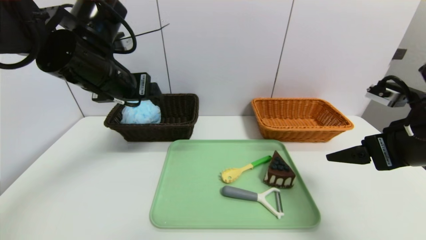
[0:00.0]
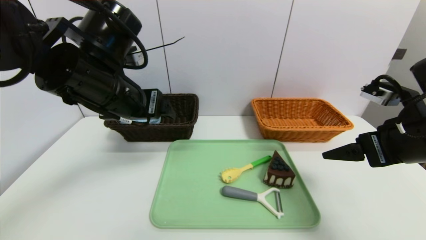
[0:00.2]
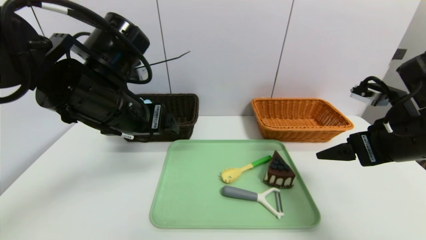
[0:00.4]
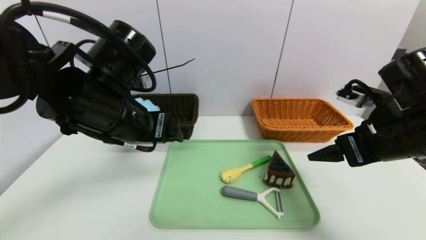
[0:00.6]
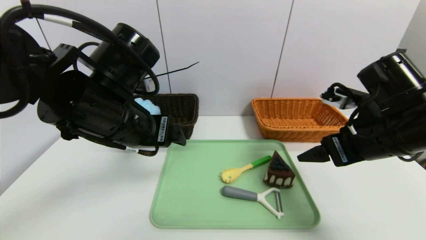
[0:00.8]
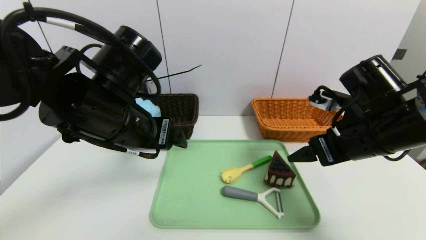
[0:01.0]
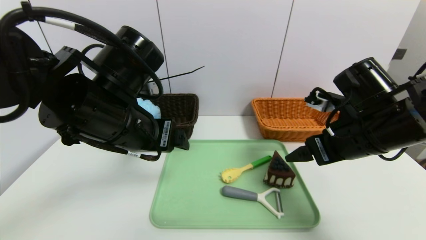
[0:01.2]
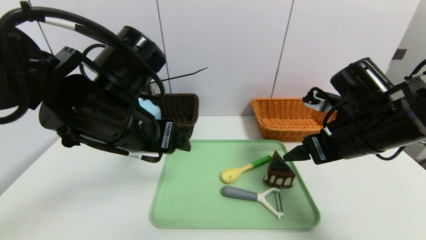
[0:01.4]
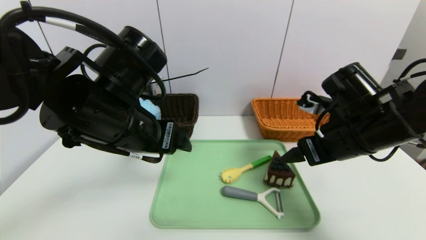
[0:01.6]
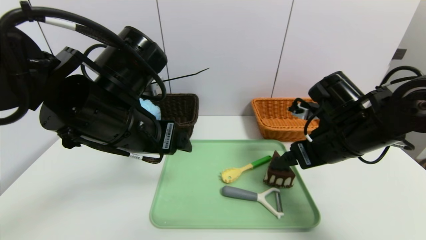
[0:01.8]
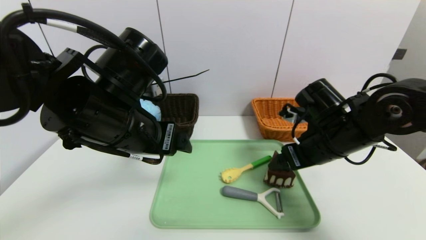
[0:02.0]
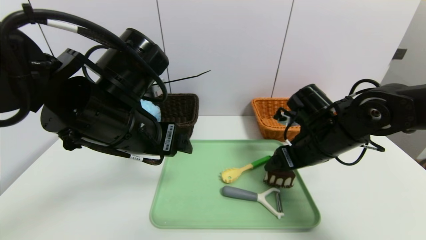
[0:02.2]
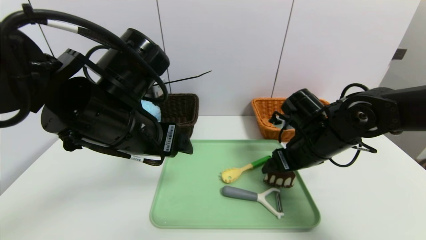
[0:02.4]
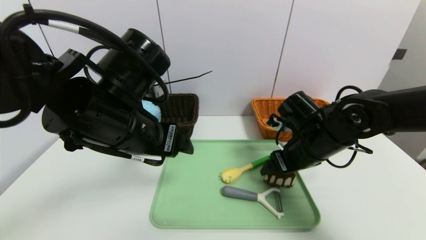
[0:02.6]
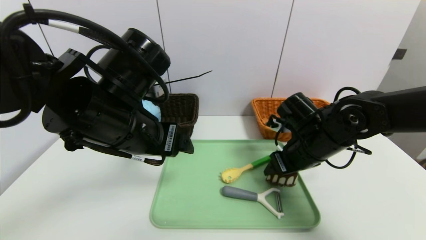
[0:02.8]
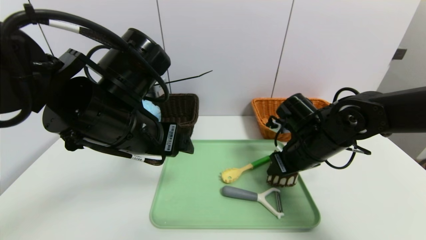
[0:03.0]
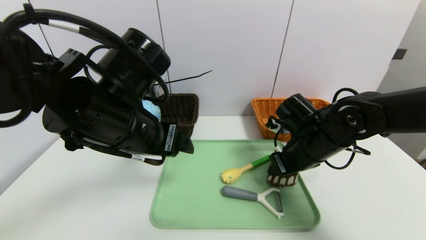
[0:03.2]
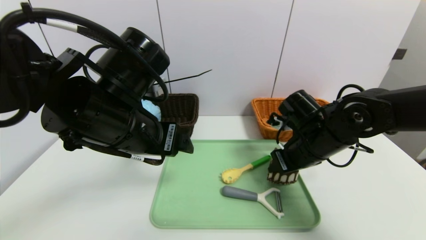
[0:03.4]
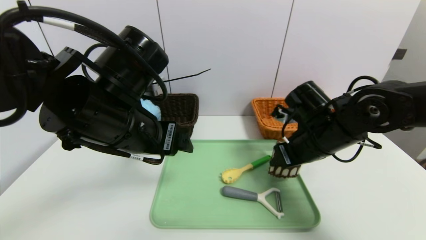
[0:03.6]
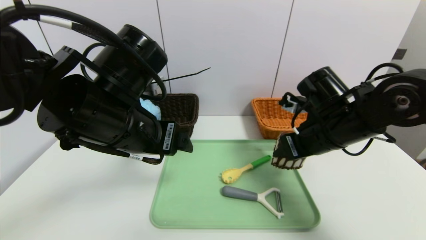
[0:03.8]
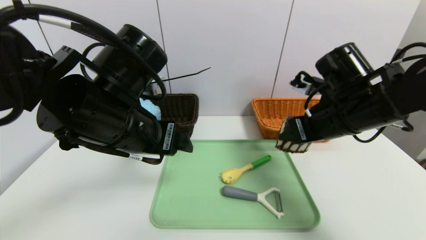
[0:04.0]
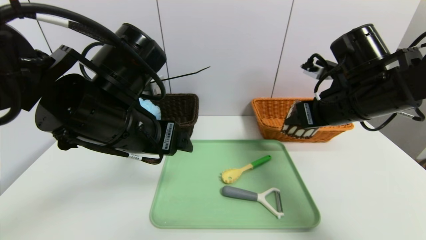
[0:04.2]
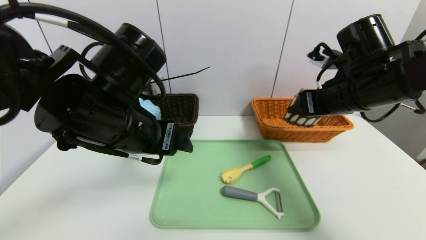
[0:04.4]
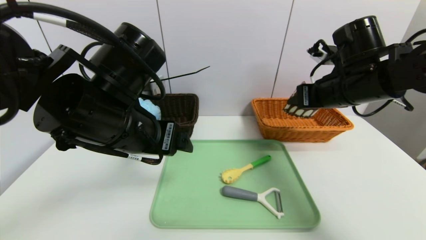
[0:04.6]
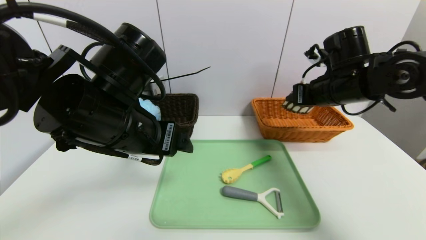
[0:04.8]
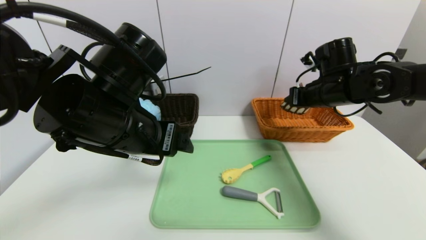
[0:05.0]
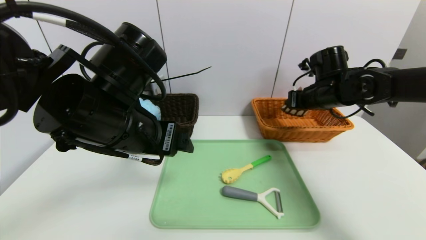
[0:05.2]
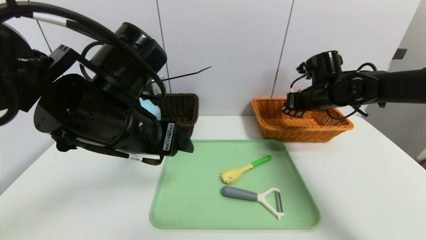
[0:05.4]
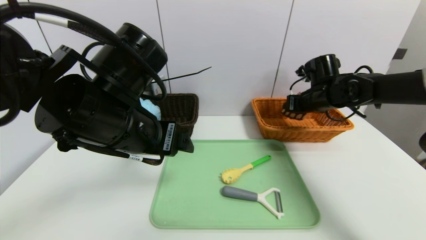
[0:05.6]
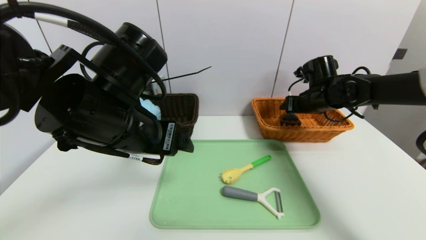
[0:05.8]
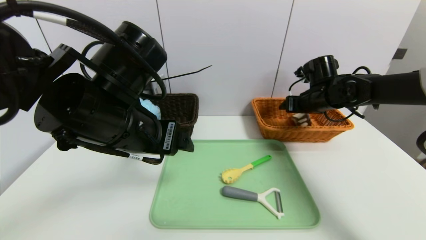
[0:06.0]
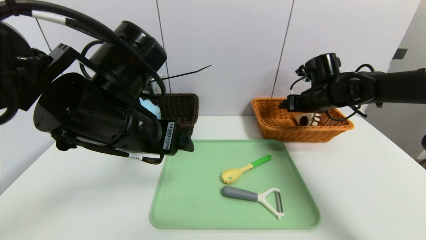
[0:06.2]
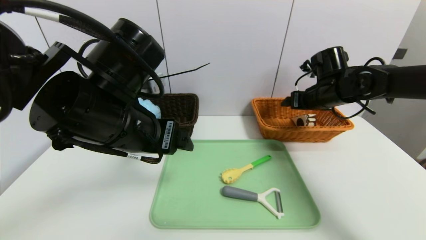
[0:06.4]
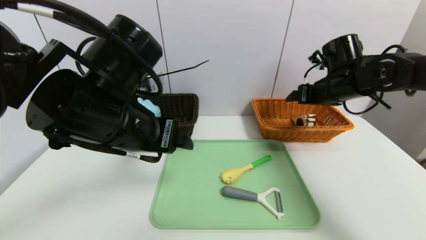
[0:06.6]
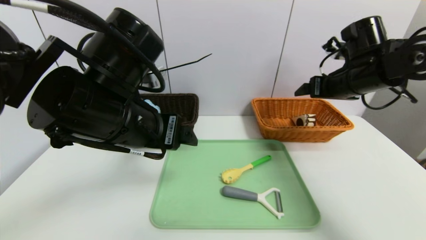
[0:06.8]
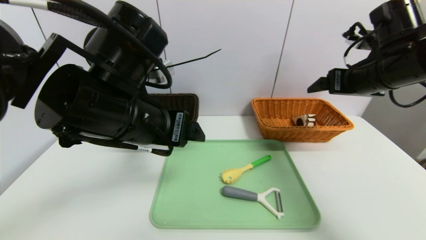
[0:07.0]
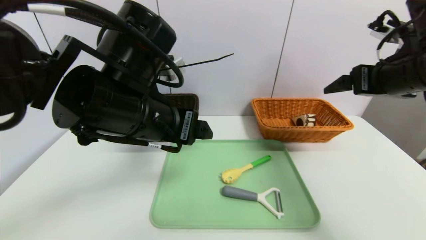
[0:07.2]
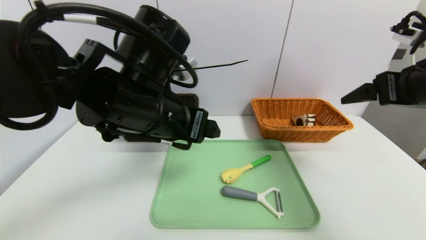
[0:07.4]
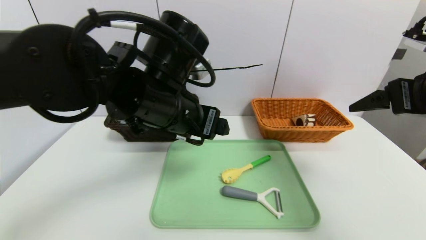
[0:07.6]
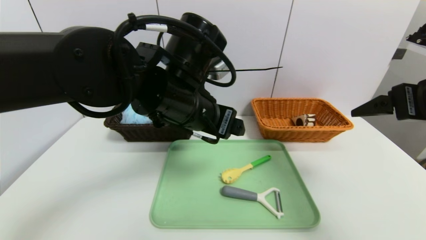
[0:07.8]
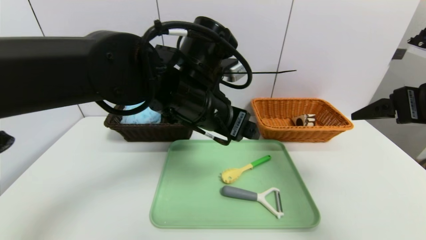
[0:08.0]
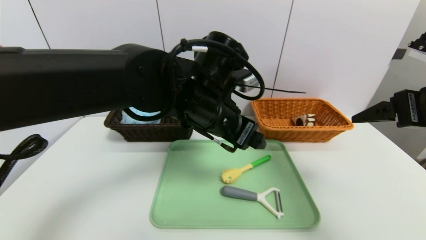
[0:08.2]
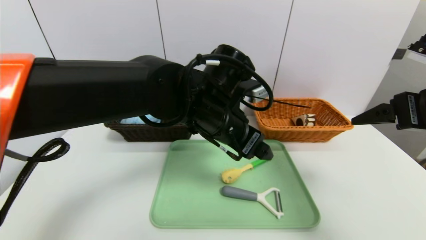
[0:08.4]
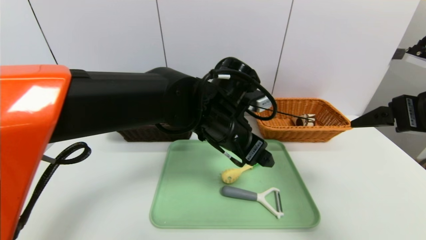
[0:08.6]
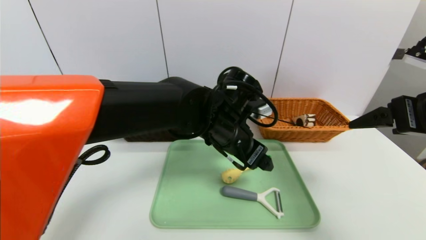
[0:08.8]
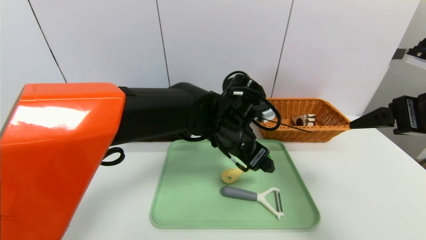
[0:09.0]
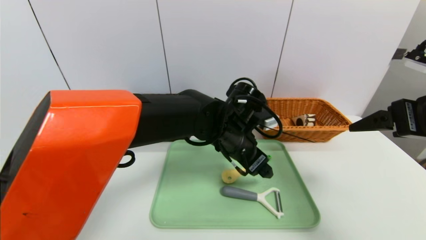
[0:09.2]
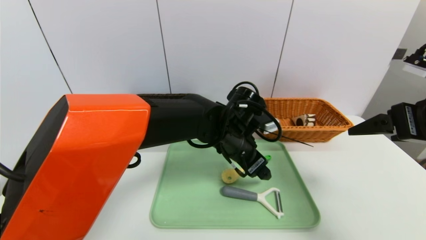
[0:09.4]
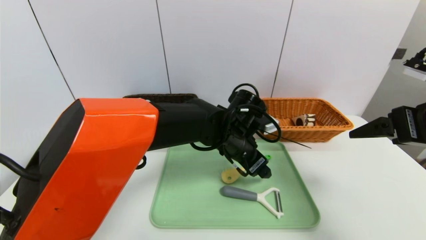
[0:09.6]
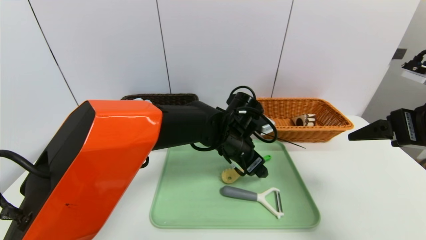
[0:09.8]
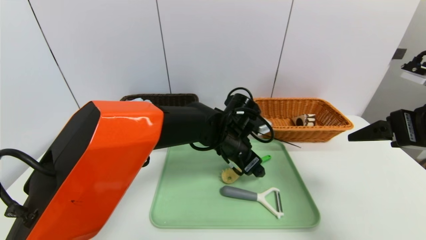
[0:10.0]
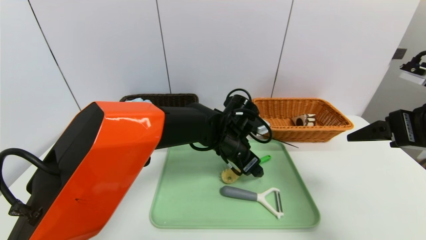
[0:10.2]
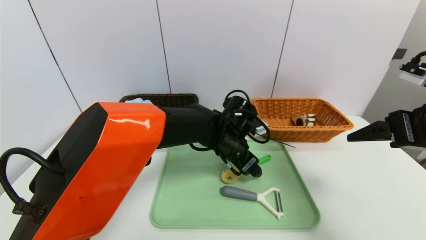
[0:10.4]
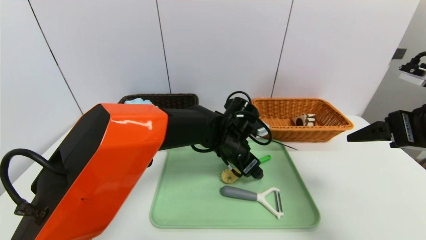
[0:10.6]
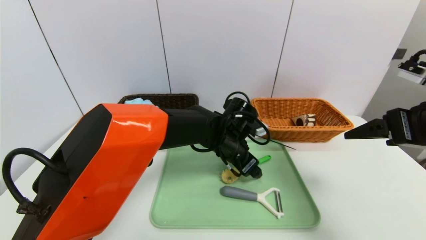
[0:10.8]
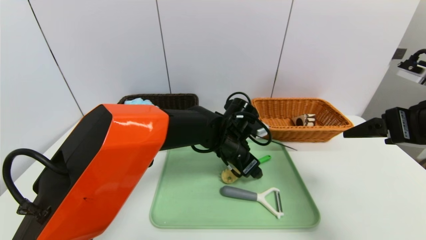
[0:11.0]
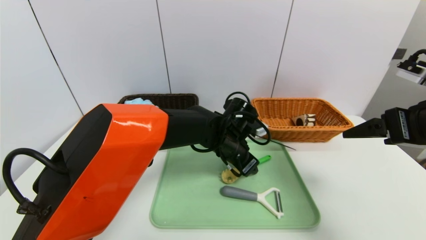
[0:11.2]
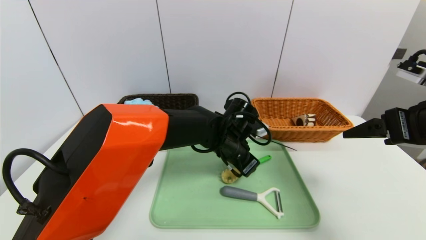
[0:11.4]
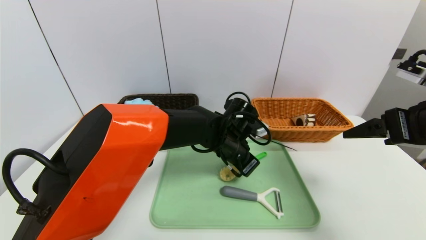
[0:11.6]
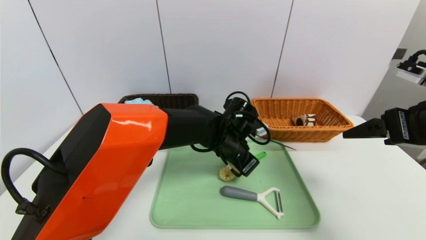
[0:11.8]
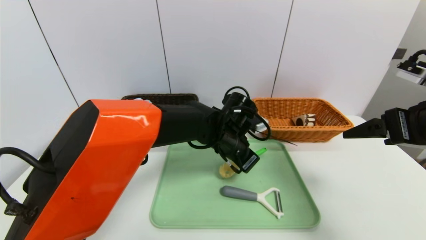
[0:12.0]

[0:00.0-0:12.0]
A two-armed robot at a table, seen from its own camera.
Task of the whole recording: place the food in the right basket with the right gripper, and place the non food items in the left basket with the left gripper.
Step, 0:00.0 to 0:06.2: Grasp the triangle cake and put it in the right basket.
0:00.0 to 0:01.6: The right gripper travels to the left and forward by approximately 10 cm. Meanwhile the left gripper is displaced backward and to the right by some 10 cm.
0:01.6 to 0:03.0: The right gripper heads downward, covering about 5 cm, and closes.
0:03.0 to 0:04.4: The right gripper goes some 10 cm upward.
0:04.4 to 0:06.0: The right gripper is displaced forward and downward by roughly 15 cm, and opens its fingers.
0:06.0 to 0:07.6: The right gripper travels backward and upward by roughly 25 cm. Meanwhile the left gripper shifts about 5 cm to the right.
0:07.6 to 0:09.0: The left gripper is displaced to the right, downward and forward by about 15 cm.
0:09.0 to 0:10.4: The left gripper shifts approximately 5 cm downward.
0:10.4 to 0:12.0: The left gripper closes.

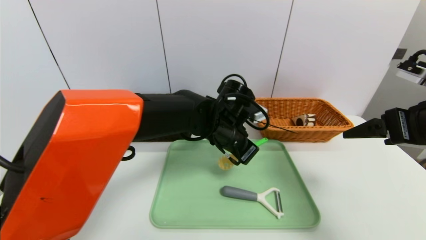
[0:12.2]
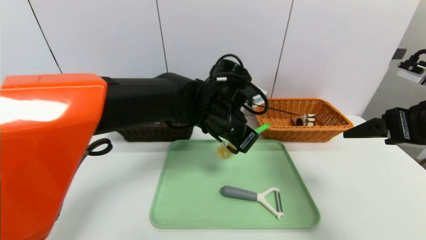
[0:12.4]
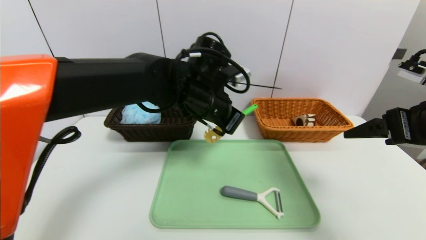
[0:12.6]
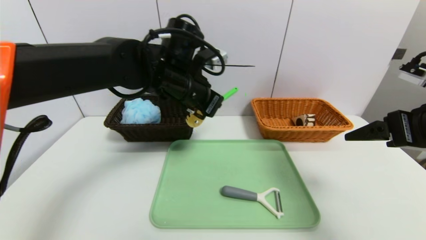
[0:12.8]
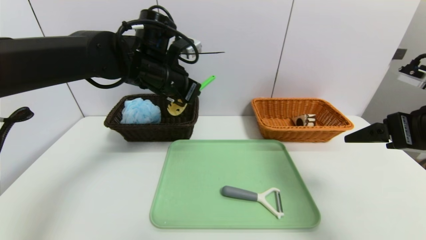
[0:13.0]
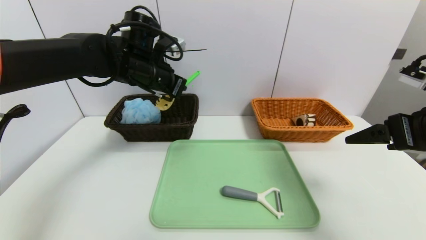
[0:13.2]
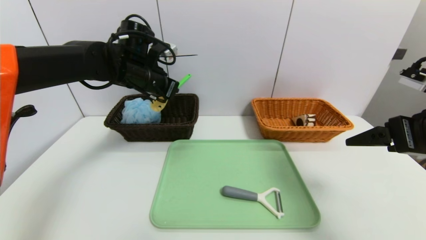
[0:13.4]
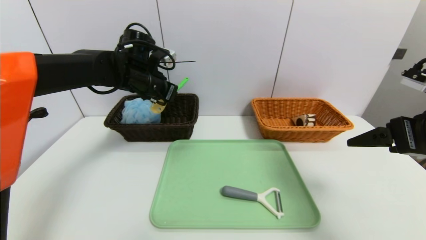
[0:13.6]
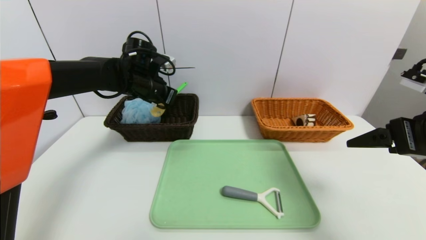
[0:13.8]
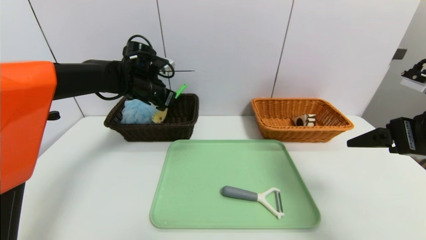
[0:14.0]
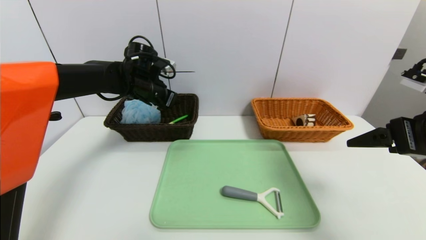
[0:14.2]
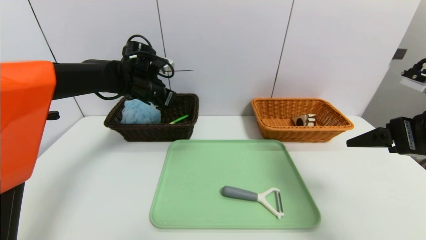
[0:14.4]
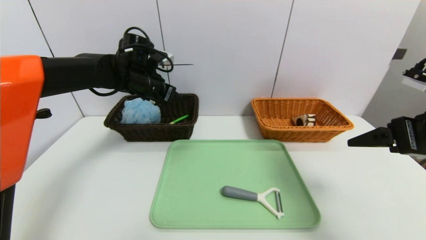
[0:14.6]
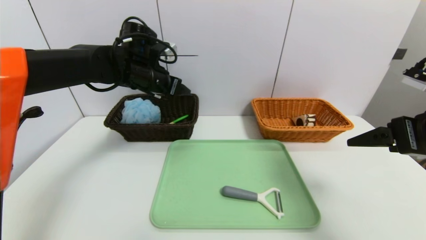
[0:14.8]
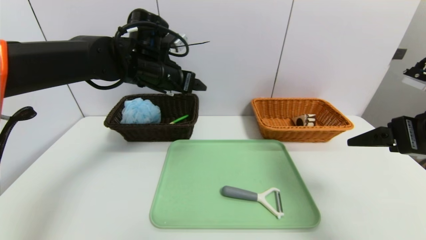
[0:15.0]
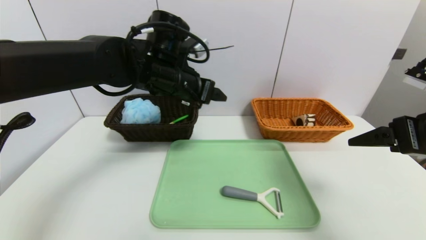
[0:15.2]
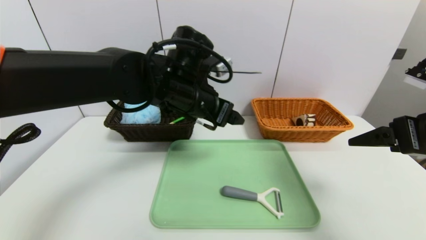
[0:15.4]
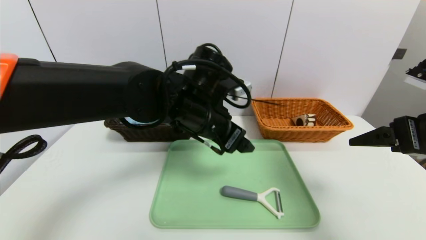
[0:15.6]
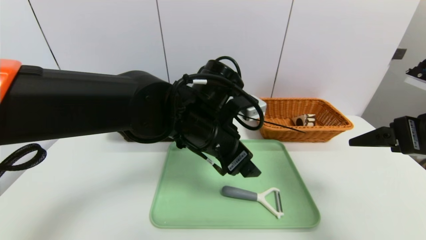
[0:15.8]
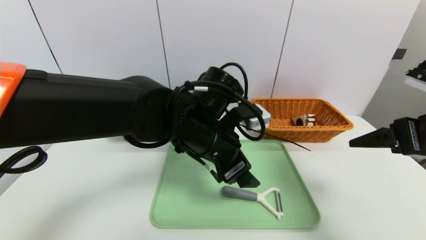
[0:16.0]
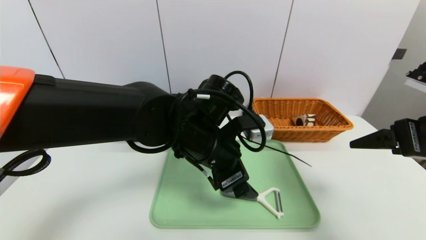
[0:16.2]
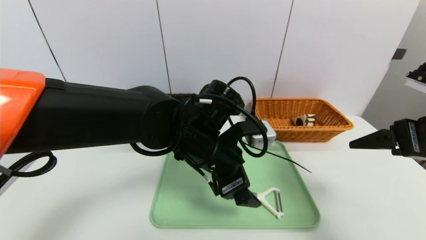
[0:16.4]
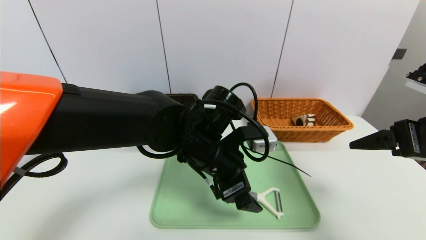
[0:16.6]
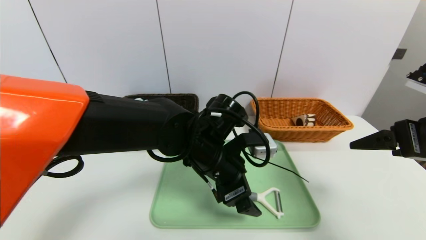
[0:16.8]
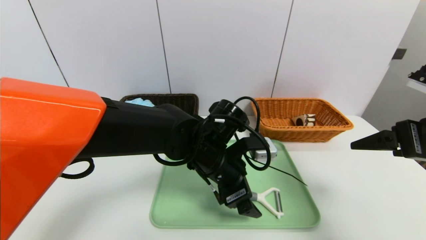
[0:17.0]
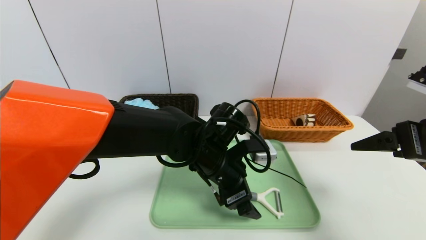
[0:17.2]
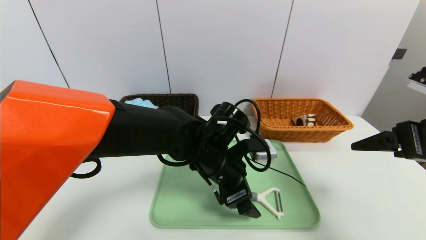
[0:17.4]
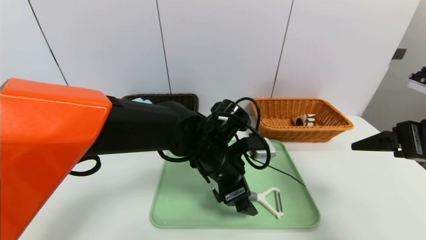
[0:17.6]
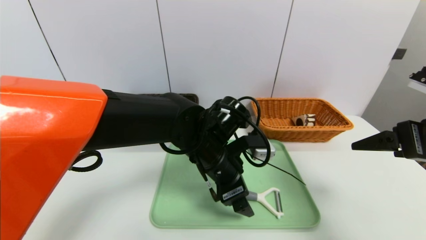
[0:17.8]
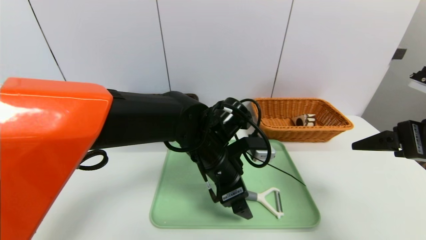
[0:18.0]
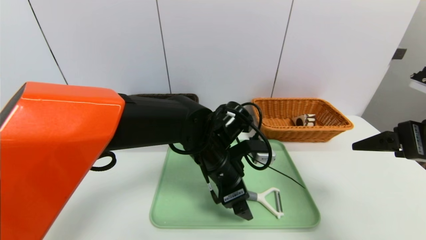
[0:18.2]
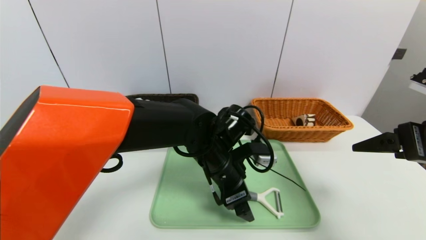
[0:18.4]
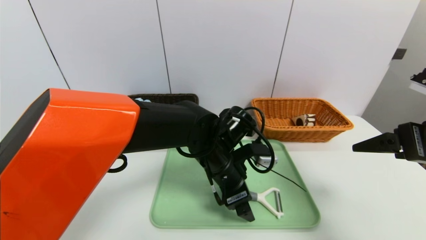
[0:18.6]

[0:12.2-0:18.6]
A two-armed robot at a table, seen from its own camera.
Task of the whole recording: place the food in the right basket with the right gripper, and place the non food items in the left basket with the left gripper.
Step, 0:12.2 to 0:14.4: Grasp the back scratcher and put it in the left basket.
0:12.2 to 0:13.8: The left gripper is displaced to the left and forward by approximately 20 cm.
0:13.8 to 0:15.4: The left gripper is displaced to the right and backward by some 15 cm, and opens.
0:15.4 to 0:17.0: The left gripper travels downward by roughly 10 cm.
0:17.0 to 0:18.6: The grippers move only a little.
